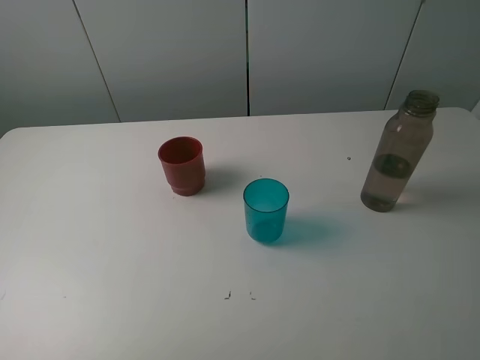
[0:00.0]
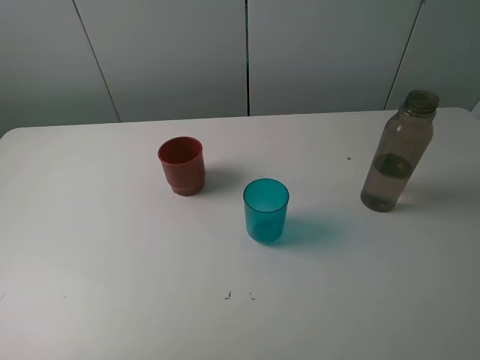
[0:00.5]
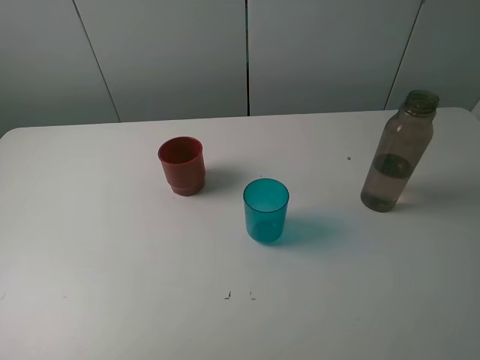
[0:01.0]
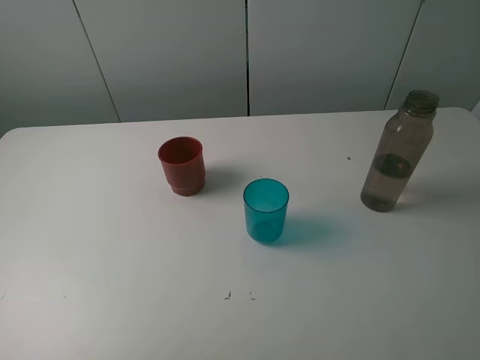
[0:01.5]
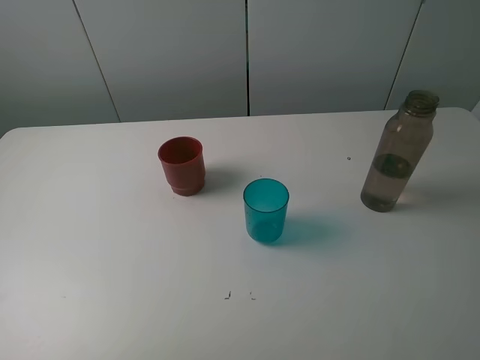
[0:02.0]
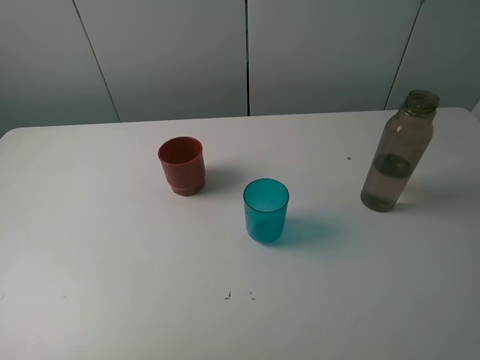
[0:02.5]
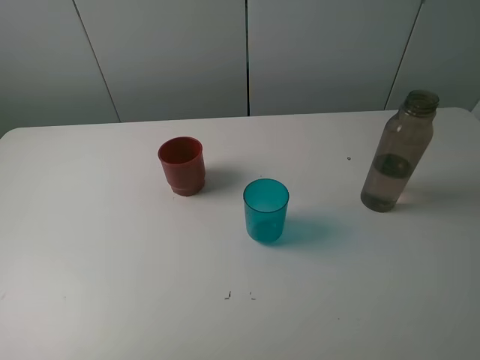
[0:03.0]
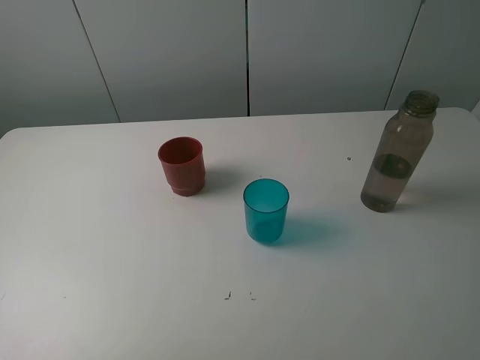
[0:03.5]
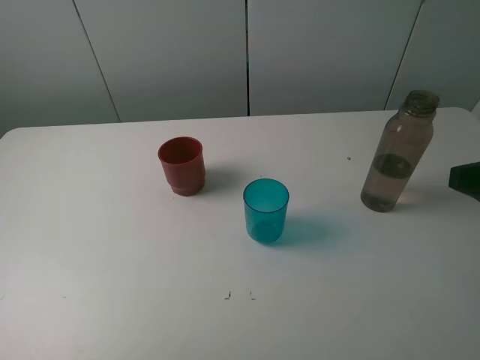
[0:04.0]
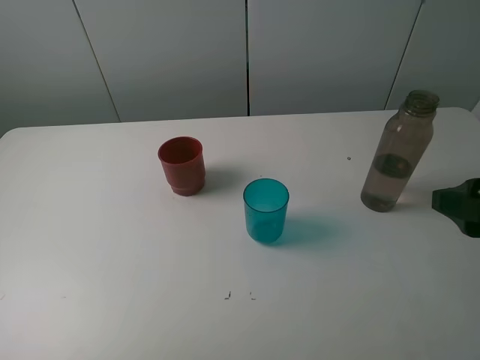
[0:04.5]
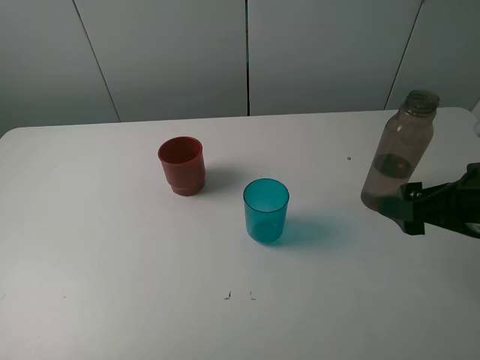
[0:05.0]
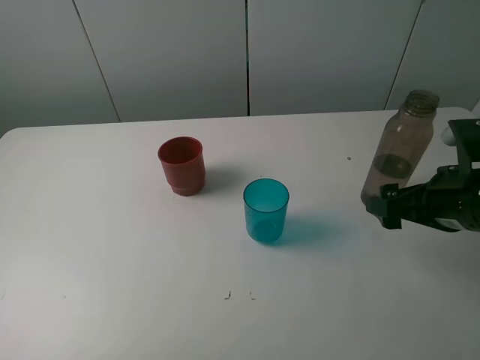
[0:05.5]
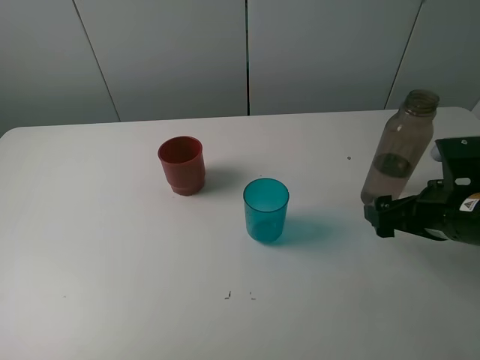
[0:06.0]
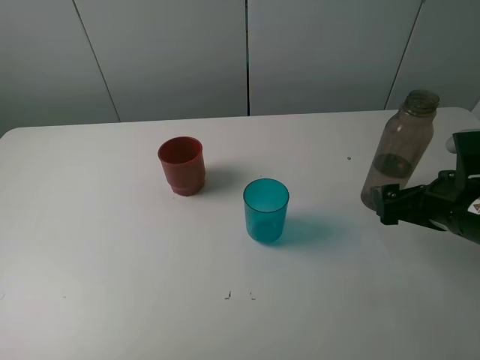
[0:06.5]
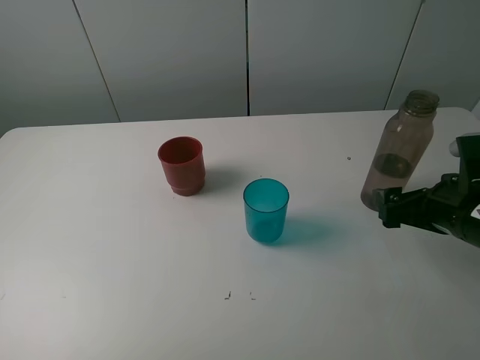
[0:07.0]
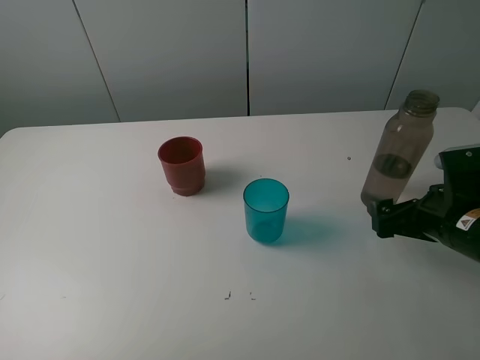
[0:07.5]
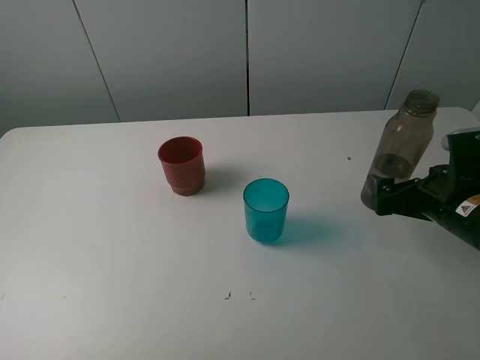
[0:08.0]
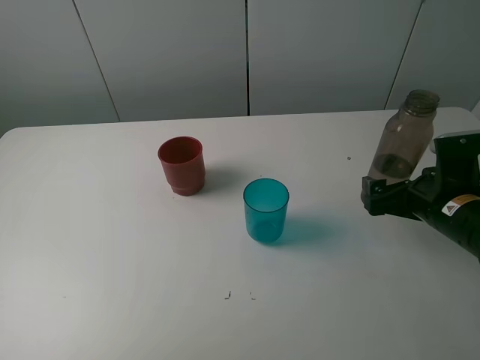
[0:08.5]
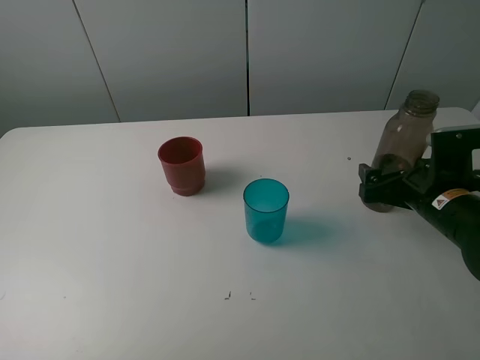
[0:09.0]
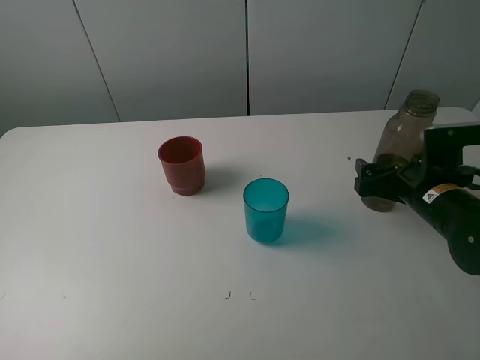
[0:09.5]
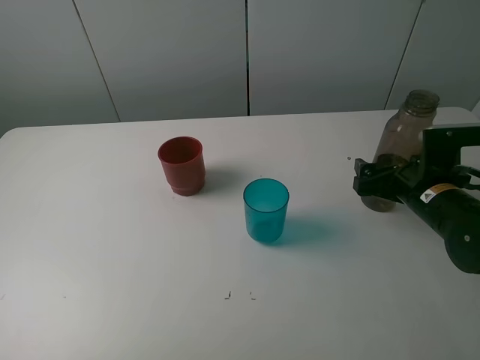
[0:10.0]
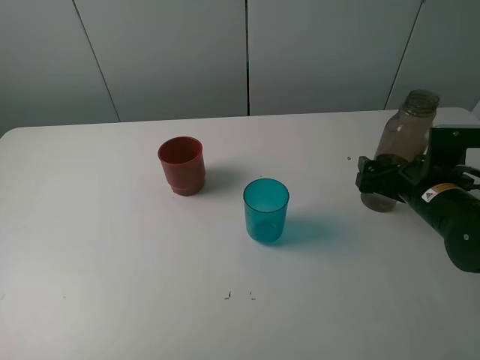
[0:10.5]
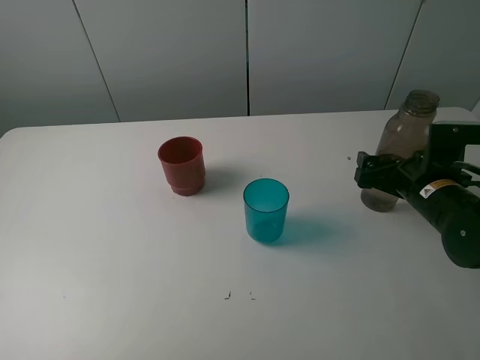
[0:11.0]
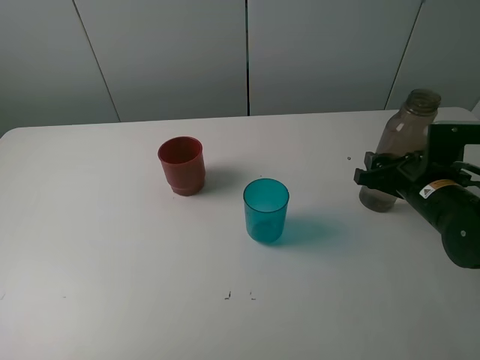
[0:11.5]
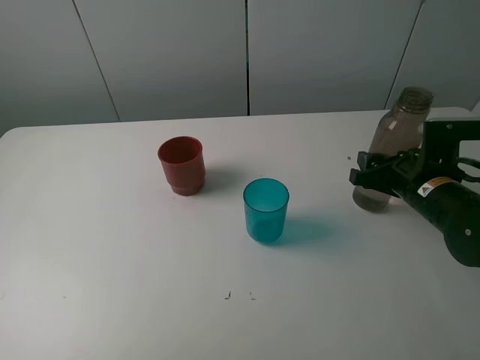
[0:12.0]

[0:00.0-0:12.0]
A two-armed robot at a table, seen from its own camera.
Task of the whole recording: pick up the bottle and pour water into the cup, then pick up the cup containing water and pour it into another cup.
Step, 0:00.0 to 0:10.5: Grasp the brown bottle with the right gripper.
0:00.0 to 0:02.0: Both grippers stay about where they are.
0:04.0 to 0:06.0: The right gripper travels downward and forward by roughly 15 cm.
0:06.0 to 0:08.0: The grippers move only a little.
0:08.0 to 0:10.0: The right gripper ends up about 5 cm from where it was.
0:10.0 to 0:12.0: The right gripper closes.

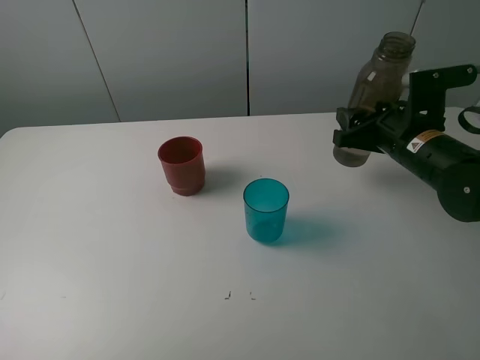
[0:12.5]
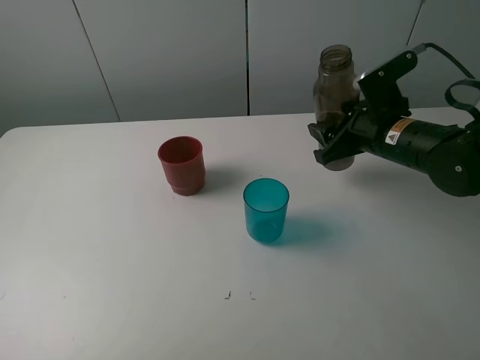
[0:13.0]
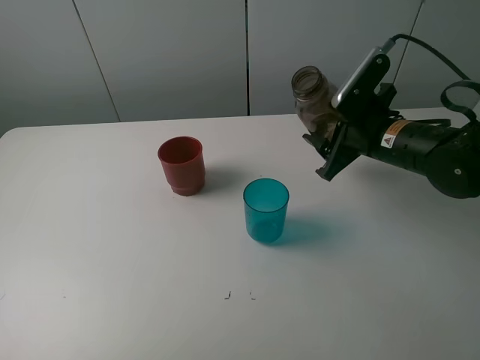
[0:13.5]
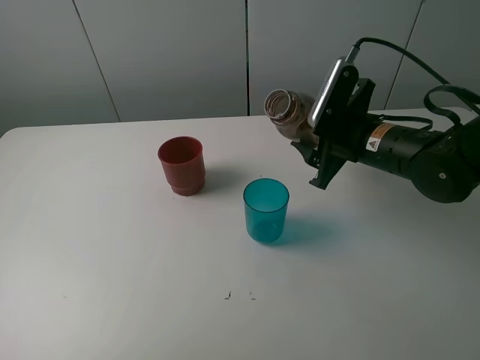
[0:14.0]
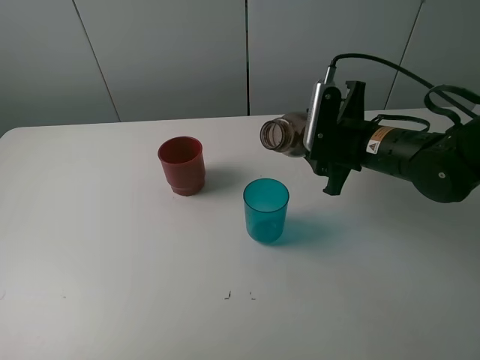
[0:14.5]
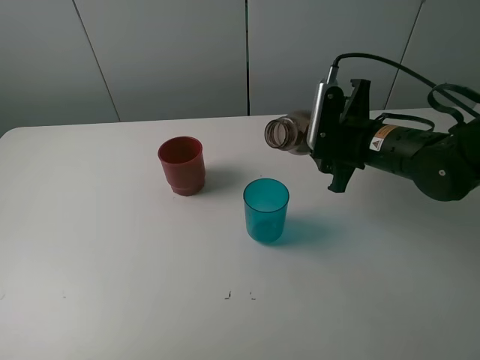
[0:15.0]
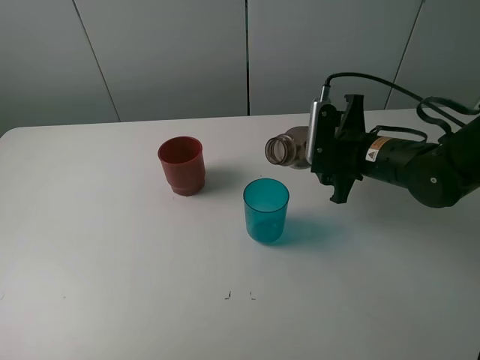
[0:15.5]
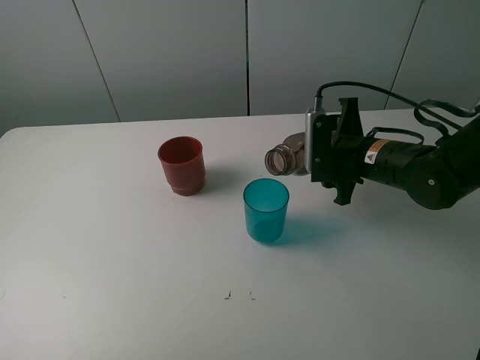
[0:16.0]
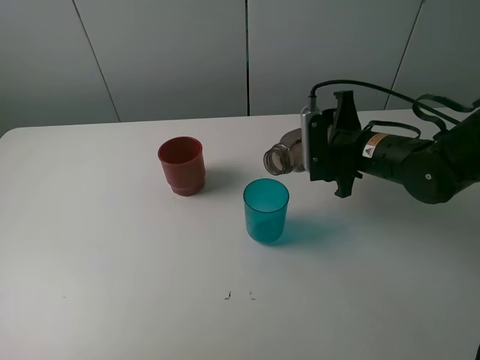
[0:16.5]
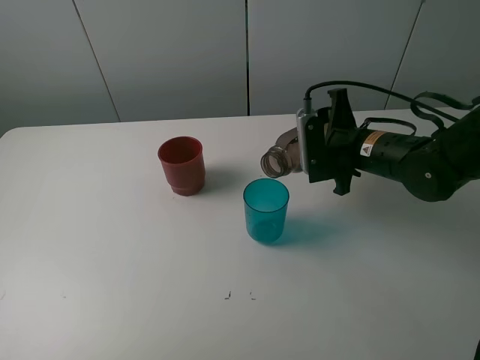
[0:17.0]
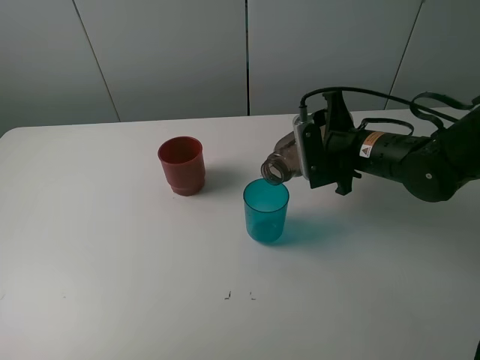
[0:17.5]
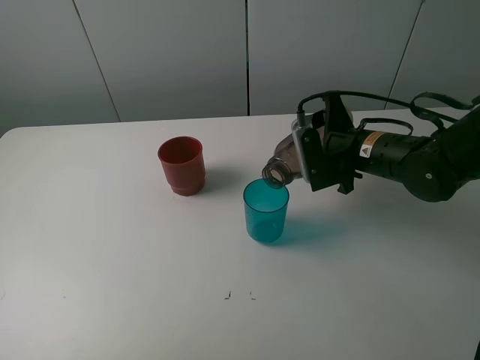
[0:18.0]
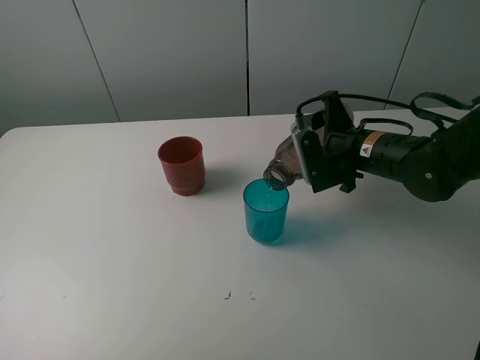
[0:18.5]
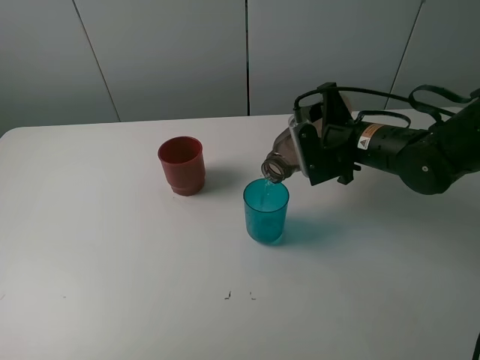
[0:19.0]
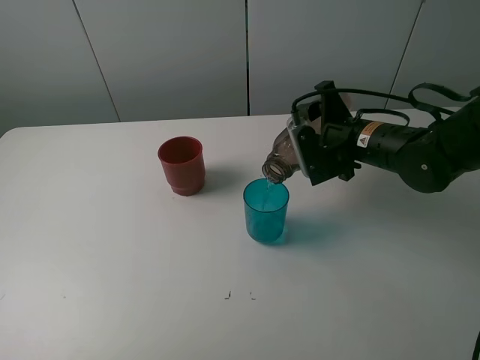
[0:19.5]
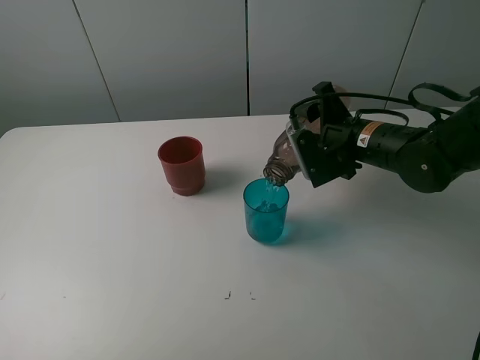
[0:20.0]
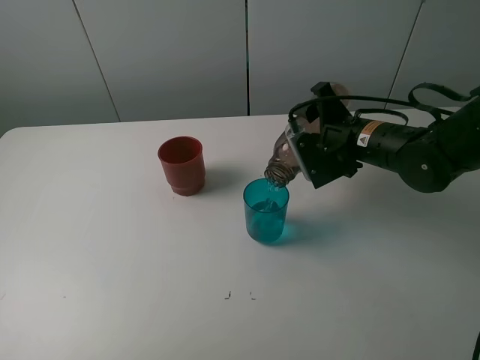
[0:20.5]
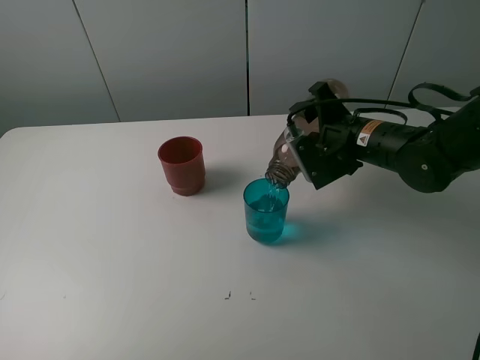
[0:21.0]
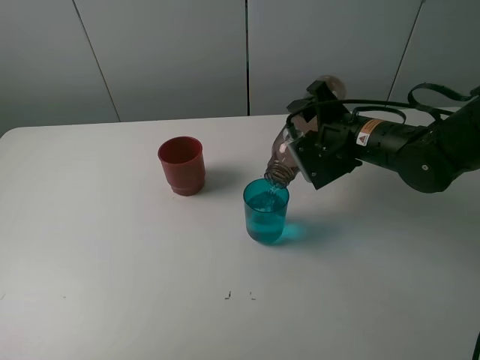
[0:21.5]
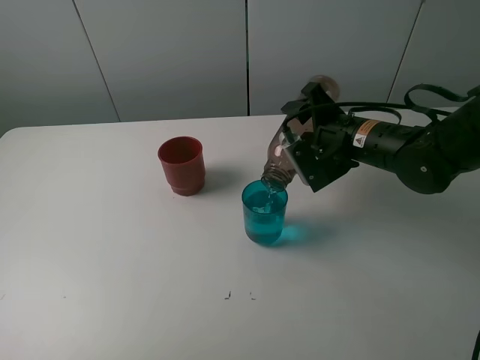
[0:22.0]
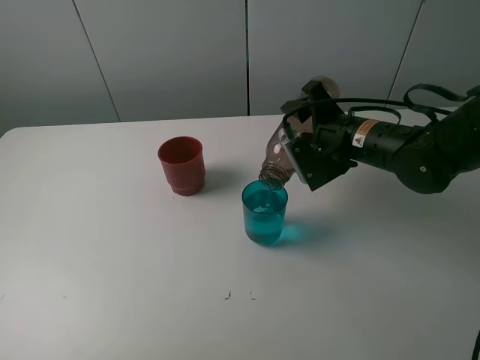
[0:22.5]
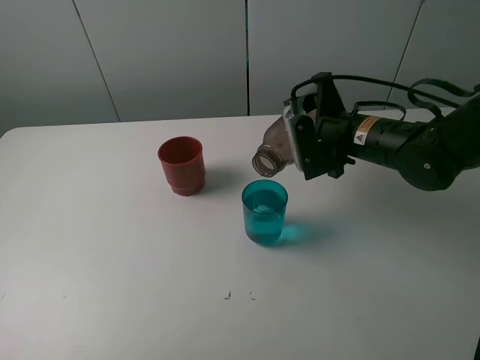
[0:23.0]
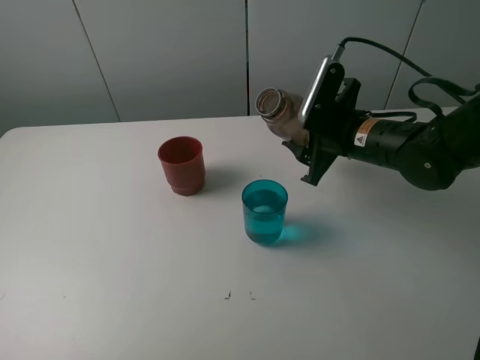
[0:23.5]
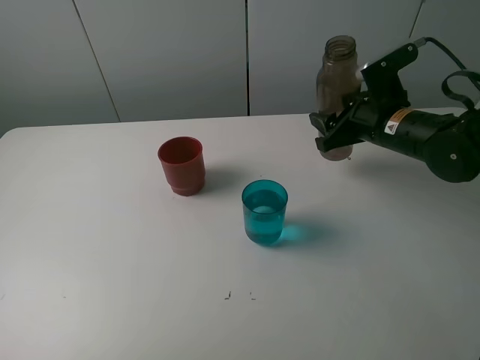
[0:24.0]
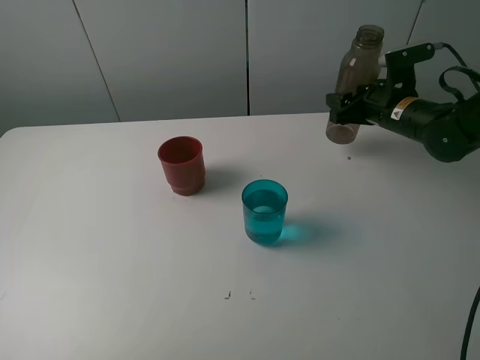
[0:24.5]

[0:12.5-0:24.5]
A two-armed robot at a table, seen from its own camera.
Task of the whole recording: pick up the bottle and pour water into the cup, then pick up the cup containing water and pour it into another cup.
Step, 0:12.5 to 0:22.5: Pour water from brown bottle to blue cup with the right gripper.
0:14.5 to 0:16.5: The grippers make only small movements.
0:16.5 to 0:18.5: The grippers move only a little.
0:18.5 to 0:22.5: The grippers stay close to where they were, moving slightly.
0:22.5 to 0:24.5: The right gripper shifts some 10 cm to the right and forward.

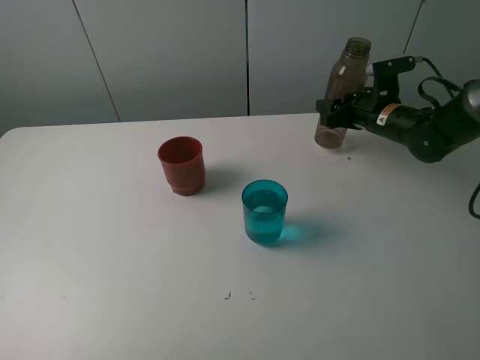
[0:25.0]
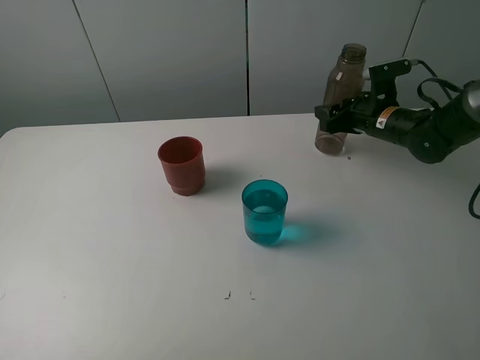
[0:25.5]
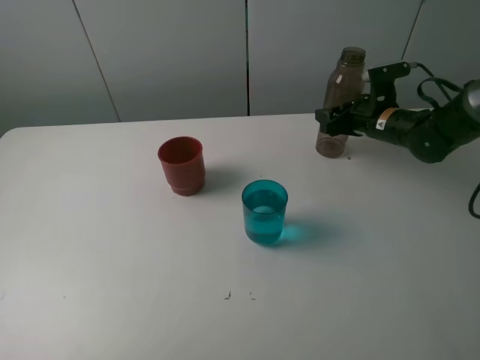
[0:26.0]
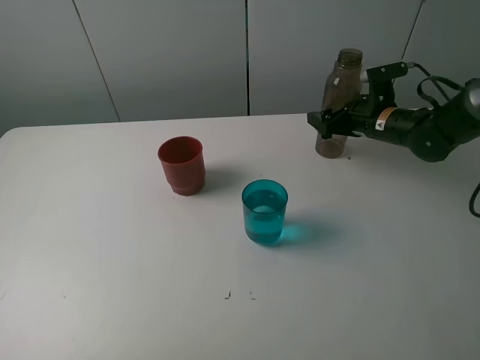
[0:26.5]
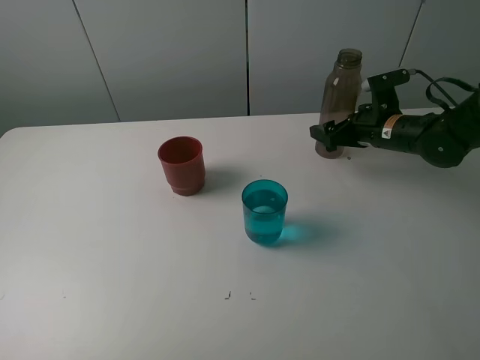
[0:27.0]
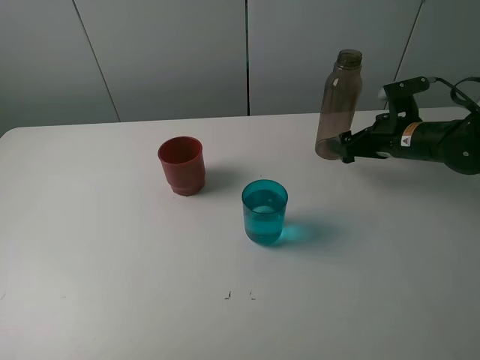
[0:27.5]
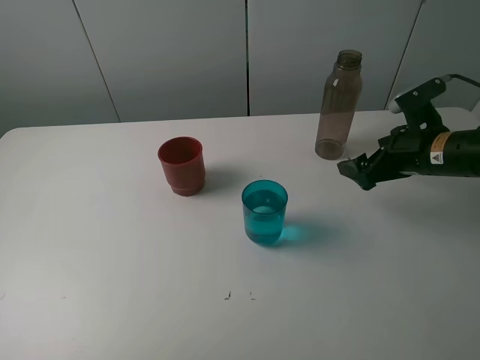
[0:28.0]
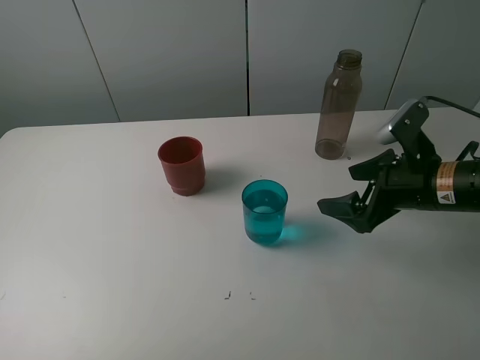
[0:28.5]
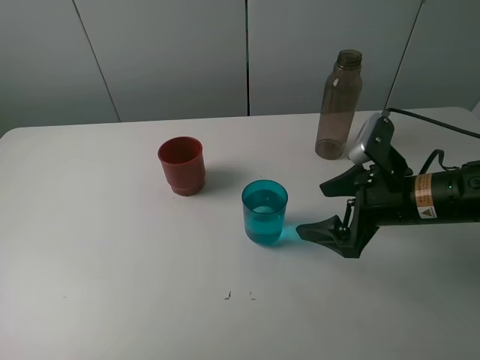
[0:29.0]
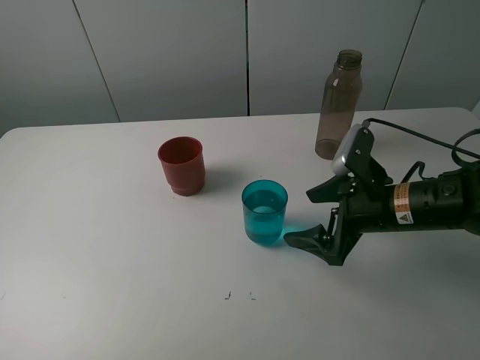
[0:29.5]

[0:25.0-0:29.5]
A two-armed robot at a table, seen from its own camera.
Task of the whole recording: pick up the bottle and pour water into the cup, then pick up the cup containing water and pour it into another cup.
0:25.0 to 0:27.0: The right gripper opens its fingers.
0:27.0 to 0:29.5: The right gripper shifts some 15 cm backward.
